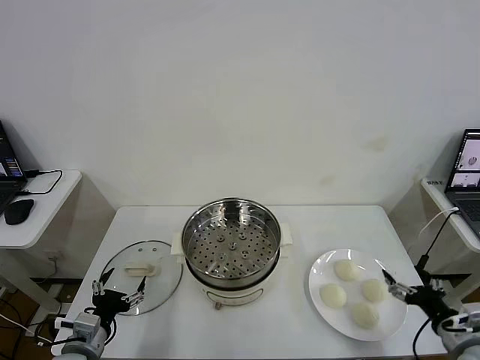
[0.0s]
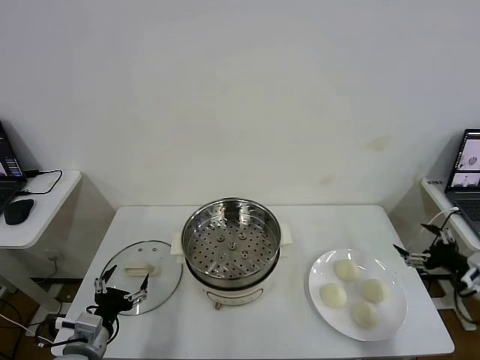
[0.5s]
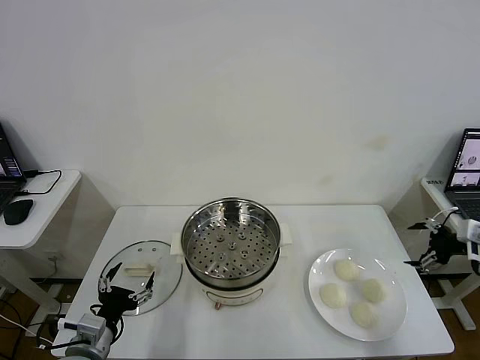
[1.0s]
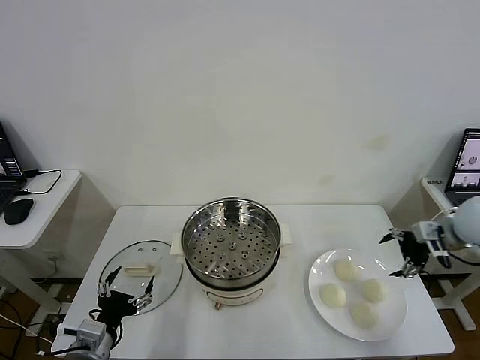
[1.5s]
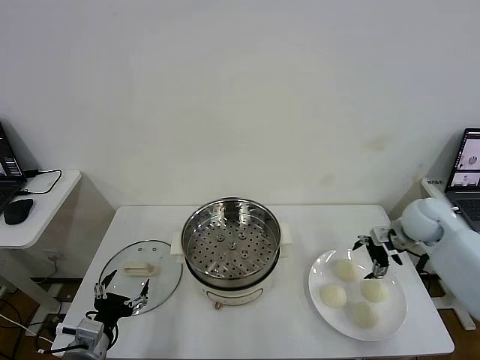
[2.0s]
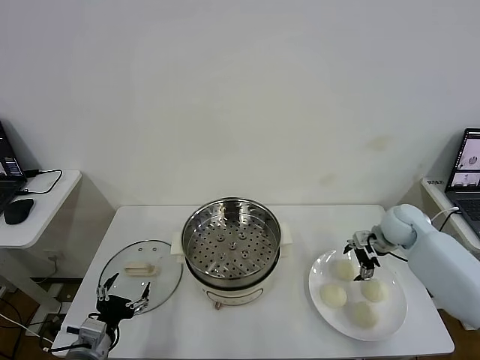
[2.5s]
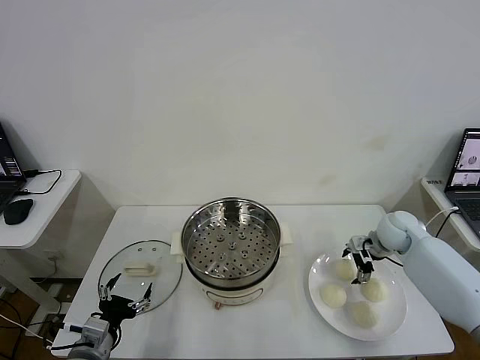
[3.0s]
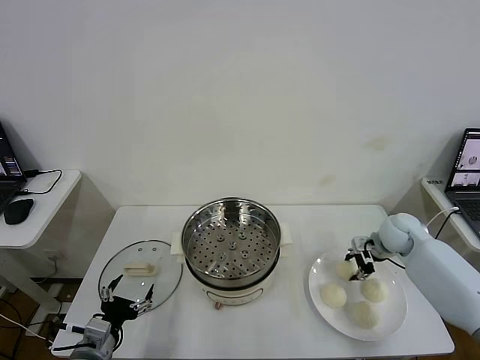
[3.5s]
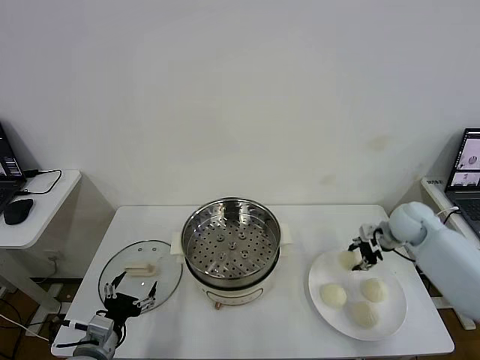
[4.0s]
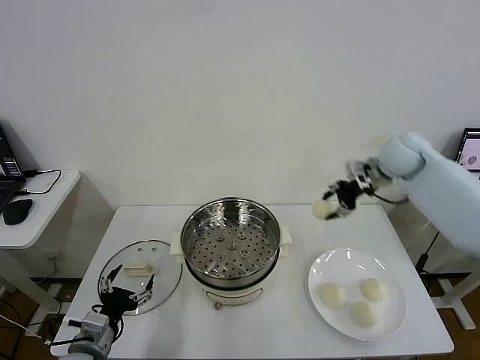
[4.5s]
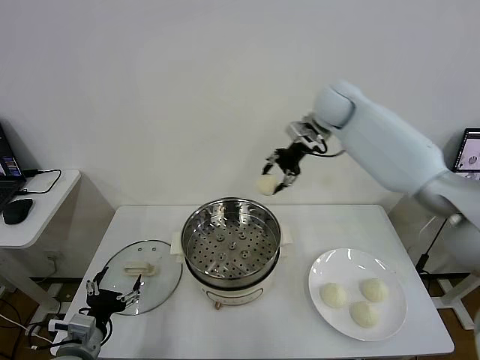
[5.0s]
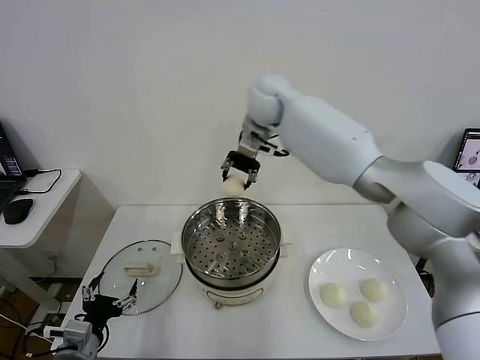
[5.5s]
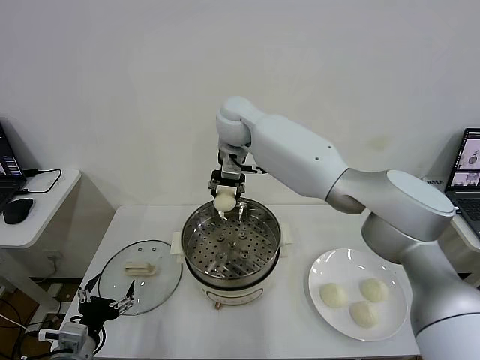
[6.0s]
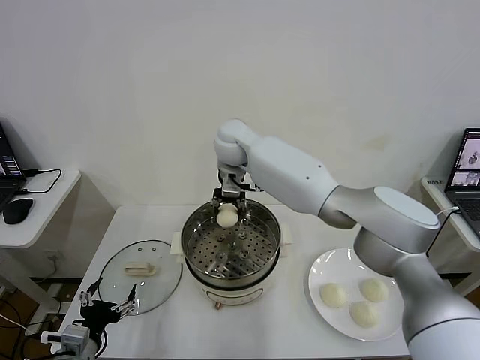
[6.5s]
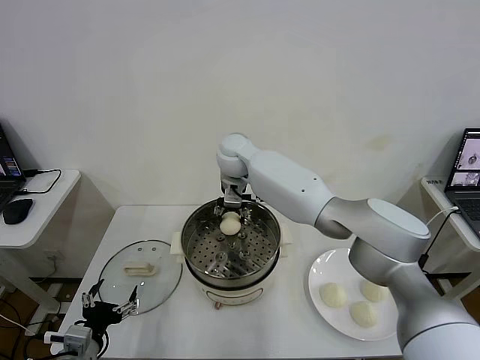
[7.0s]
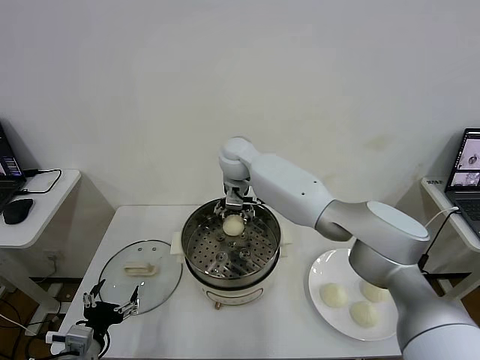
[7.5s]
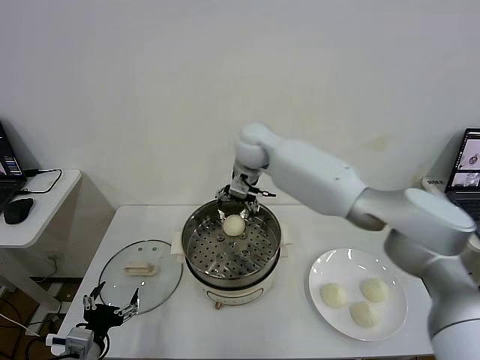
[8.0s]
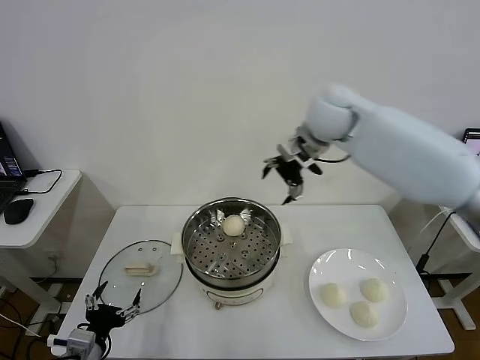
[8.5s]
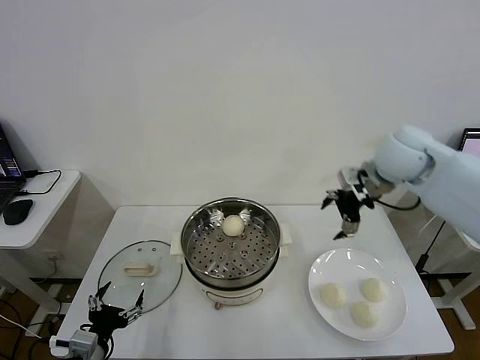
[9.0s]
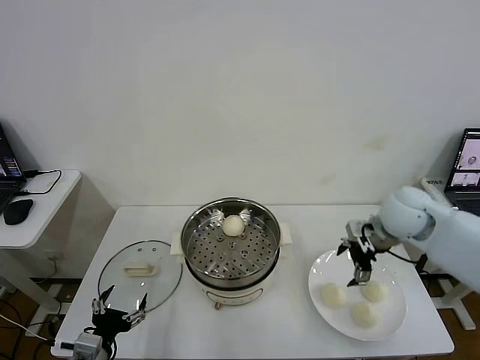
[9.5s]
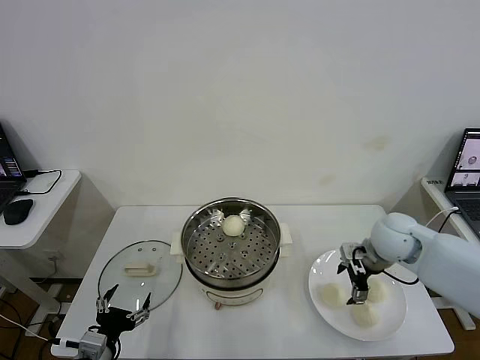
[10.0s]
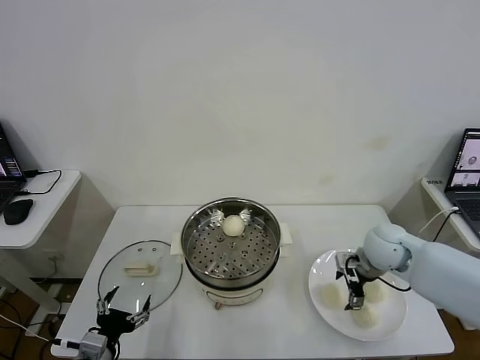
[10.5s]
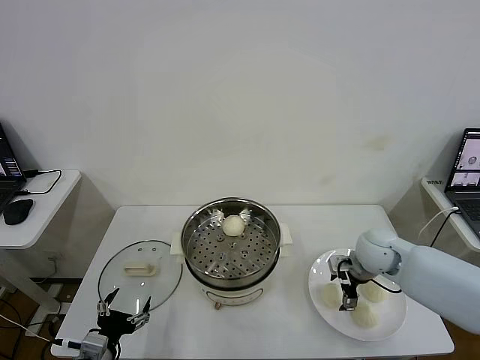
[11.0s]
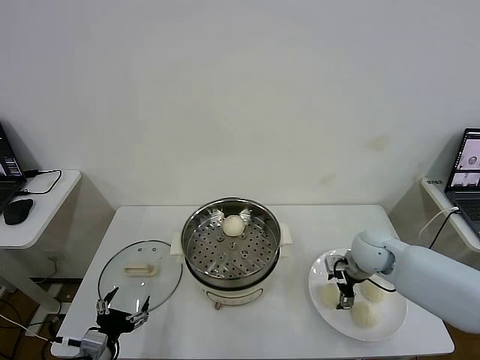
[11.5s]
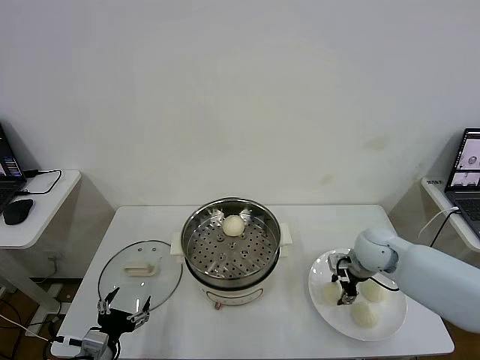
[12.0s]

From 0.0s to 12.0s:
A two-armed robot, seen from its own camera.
Task of the whole recording: take steamed baozi put them in steamer then cover it.
Step, from 0.0s to 3.0s: Grasp the baozi in the plate with right gripper.
Step, from 4.0s to 7.5s: Place the baozi on the steamer with right gripper.
Step, from 8.0s to 11.5s: Grasp the baozi in the plate with right gripper.
From 2.0s to 4.0s: The right gripper reaches roughly 5 cm downward, then returns, and closes up.
From 4.0s to 6.0s: The right gripper heads to the left, covering roughly 40 cm.
From 6.0s to 8.0s: The right gripper shifts approximately 5 cm to the right, goes downward and returns, about 10 cm each way, and opens.
From 8.0s to 10.0s: The right gripper is displaced to the right, downward and backward by some 35 cm.
From 10.0s to 12.0s: The right gripper closes.

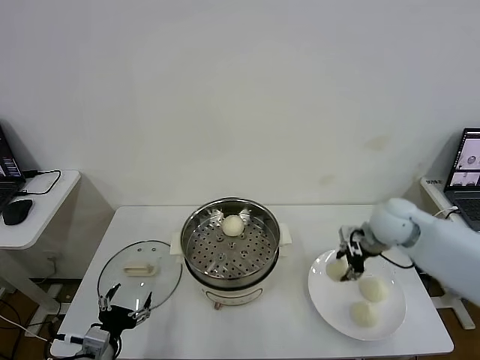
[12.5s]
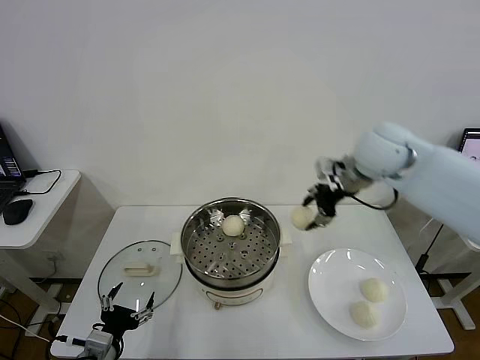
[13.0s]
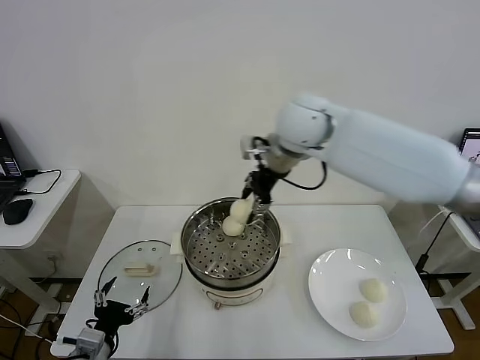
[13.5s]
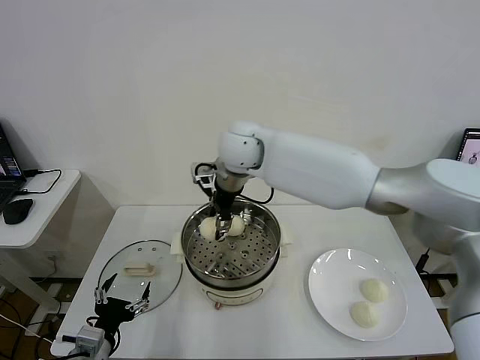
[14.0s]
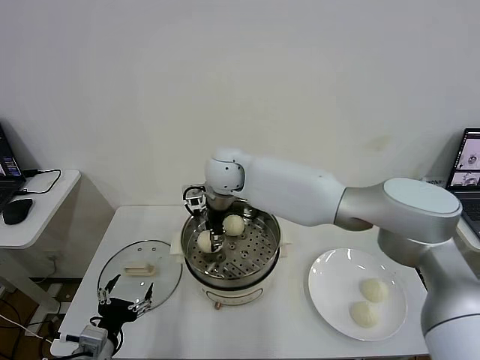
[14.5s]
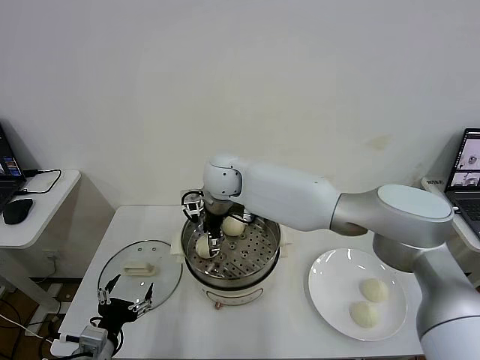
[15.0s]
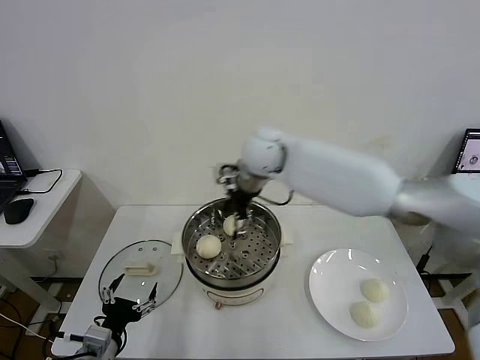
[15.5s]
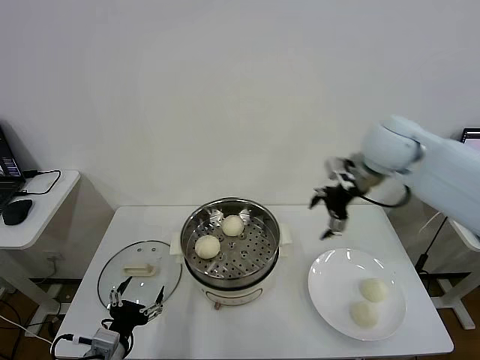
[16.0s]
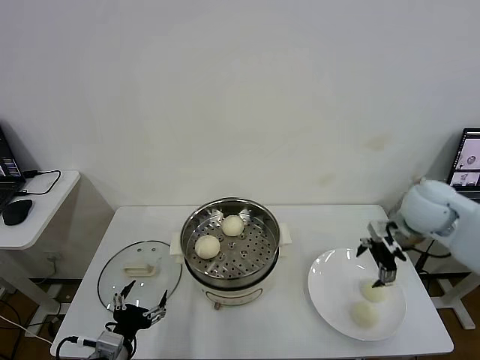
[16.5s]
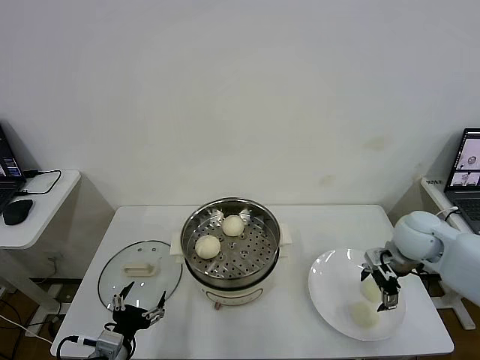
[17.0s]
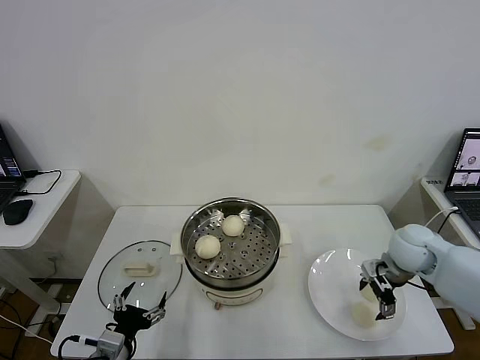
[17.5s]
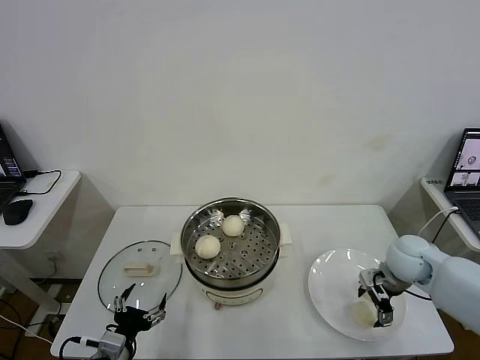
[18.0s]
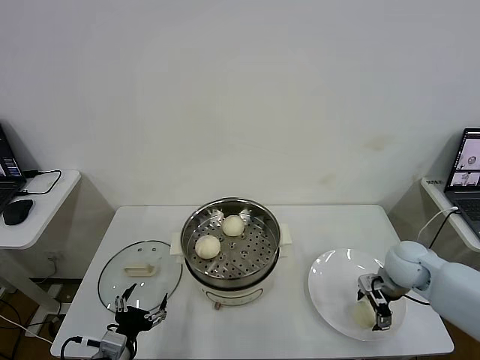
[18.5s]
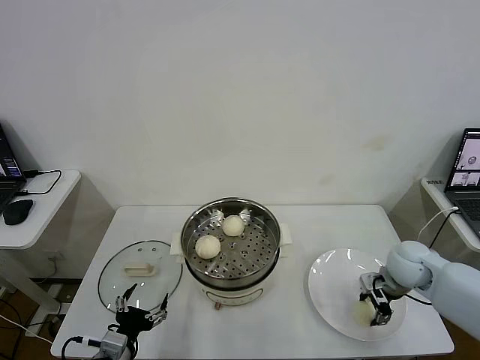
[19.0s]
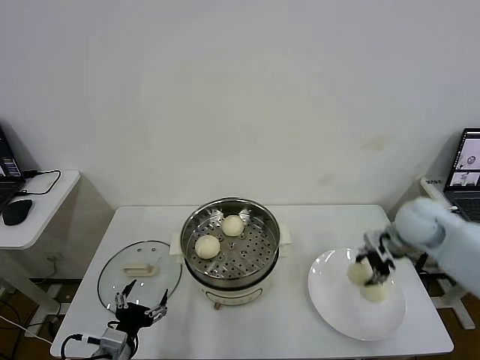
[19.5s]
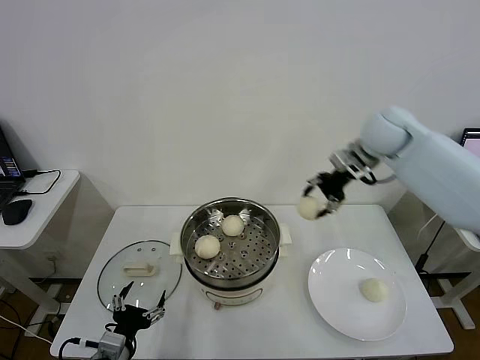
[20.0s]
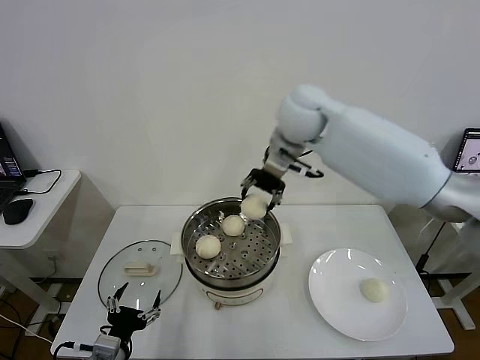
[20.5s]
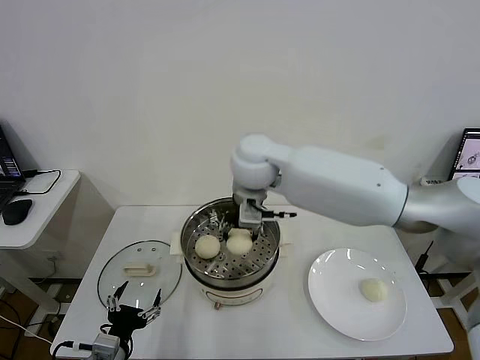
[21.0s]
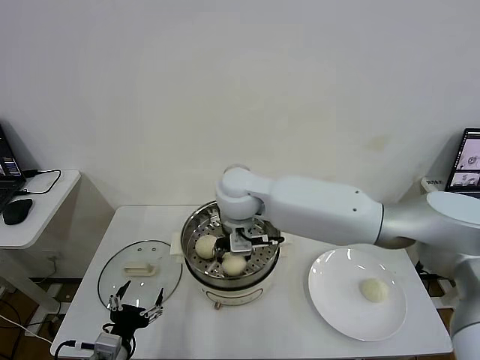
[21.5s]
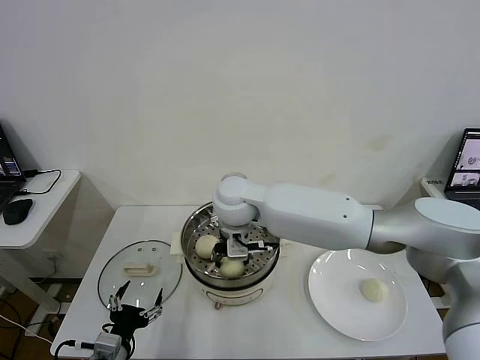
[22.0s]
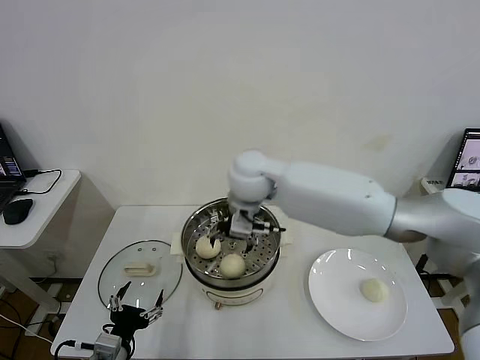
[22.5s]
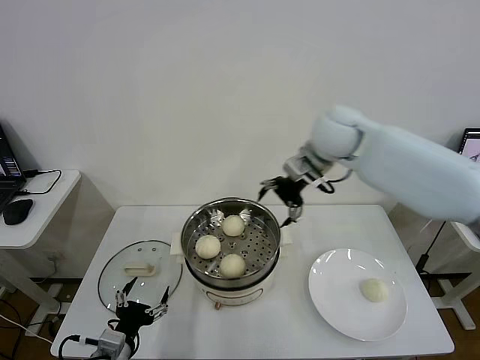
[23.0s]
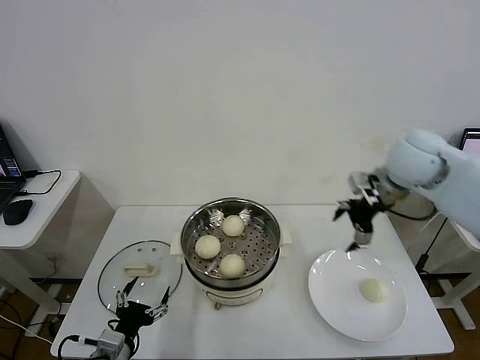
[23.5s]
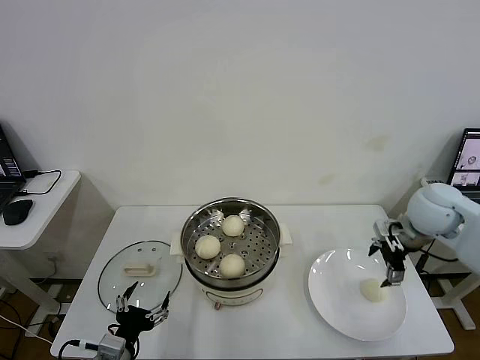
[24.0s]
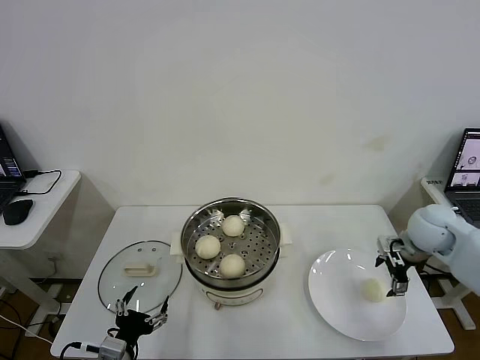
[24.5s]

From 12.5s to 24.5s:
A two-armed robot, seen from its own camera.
Task of the whole recording: take steamed baozi put them in steamer then cover it.
Step, from 12.5s to 15.0s: Place the baozi on the steamer with right gripper.
Step, from 15.5s to 19.0s: Grasp the baozi in the plate with right gripper.
Step, from 19.5s to 22.0s: Place the baozi on the steamer with right gripper.
From 12.5s to 14.5s: The right gripper heads to the left, covering approximately 35 cm.
From 14.5s to 16.5s: The right gripper travels to the right by some 40 cm, and opens its fingers.
From 16.5s to 18.5s: The right gripper is displaced downward by some 15 cm.
From 18.5s to 20.5s: The right gripper heads upward, to the left and forward, covering roughly 40 cm, and closes.
From 20.5s to 22.5s: The right gripper shifts about 10 cm downward and to the left, and opens its fingers.
From 22.5s to 24.5s: The right gripper heads to the right, covering roughly 40 cm.

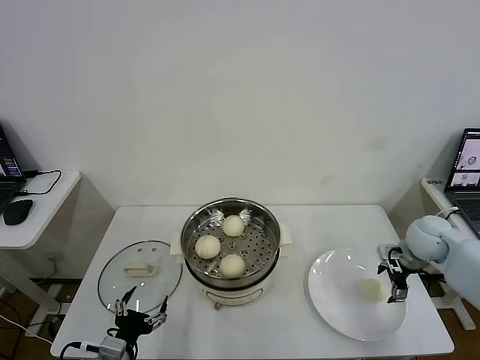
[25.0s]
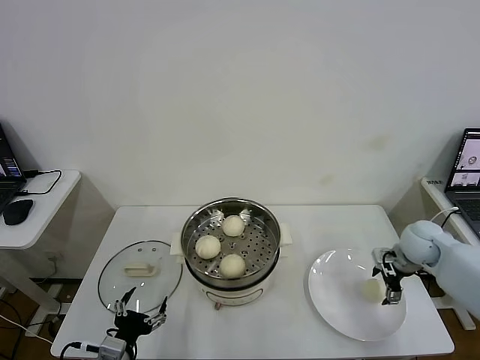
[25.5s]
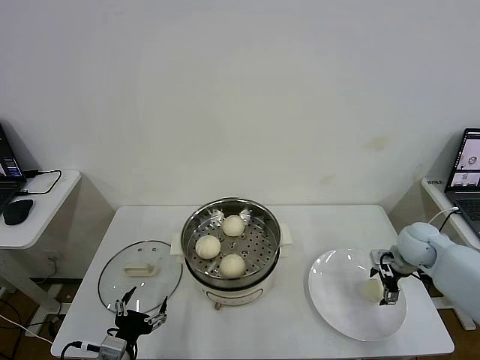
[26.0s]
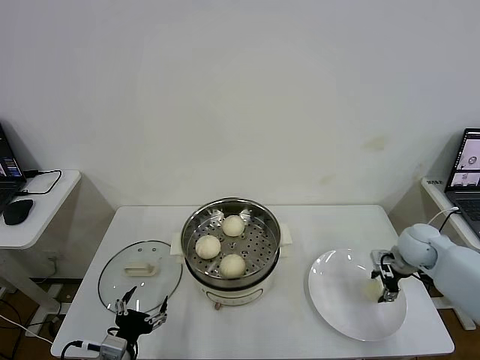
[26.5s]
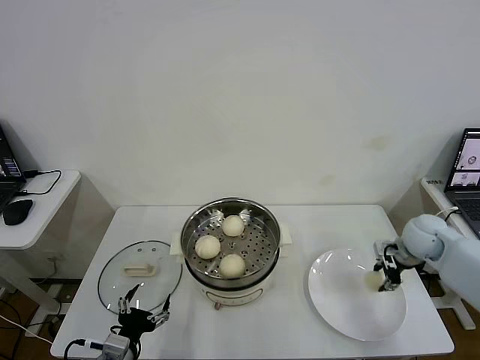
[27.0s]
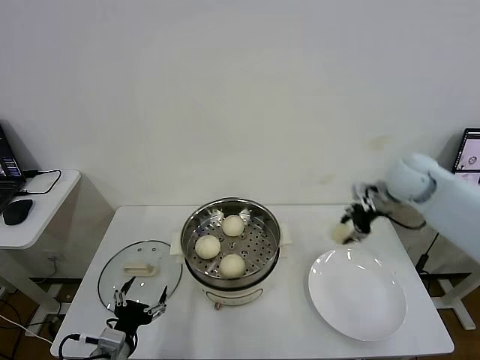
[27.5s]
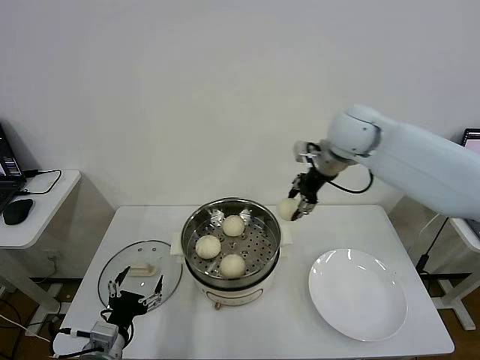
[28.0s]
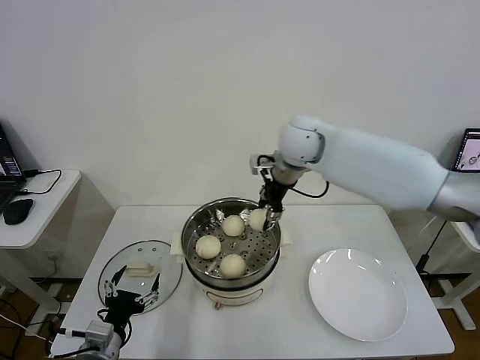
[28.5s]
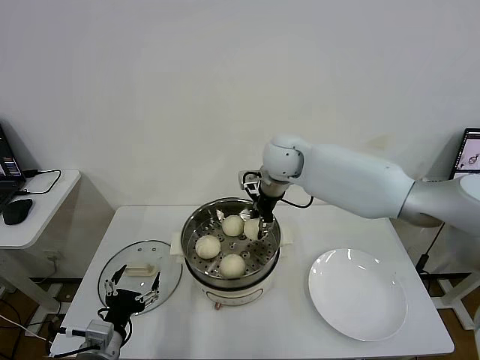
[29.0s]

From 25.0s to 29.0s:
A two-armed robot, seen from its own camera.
Task of the whole recording: take steamed baozi put them in steamer then cover it.
From 25.0s to 27.0s: The right gripper closes its fingers.
From 27.0s to 29.0s: The right gripper shifts roughly 35 cm to the left and upward.
